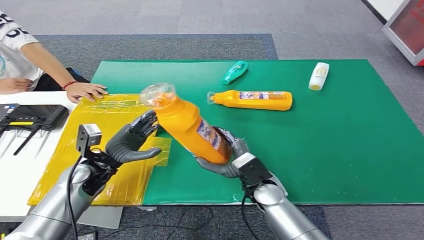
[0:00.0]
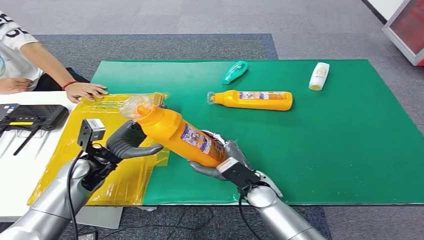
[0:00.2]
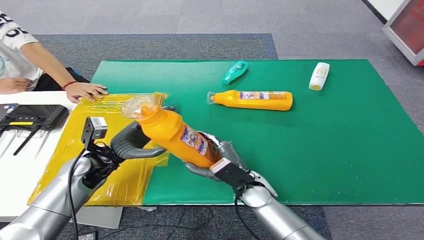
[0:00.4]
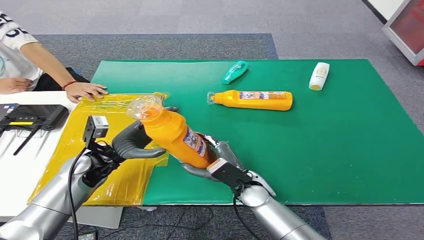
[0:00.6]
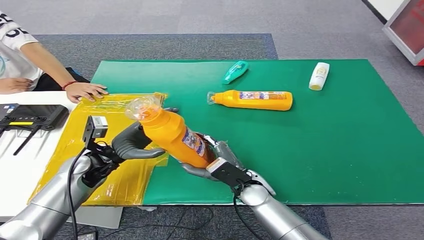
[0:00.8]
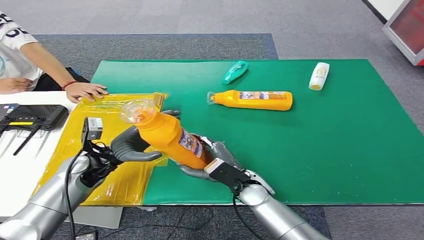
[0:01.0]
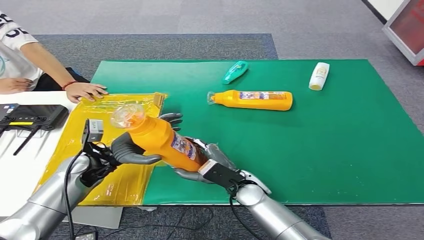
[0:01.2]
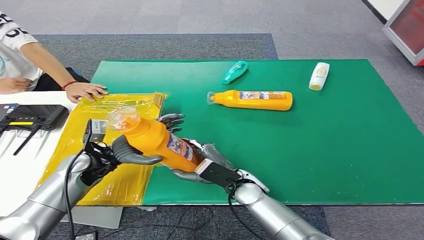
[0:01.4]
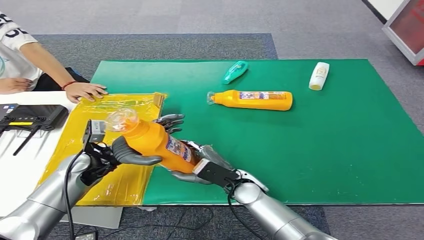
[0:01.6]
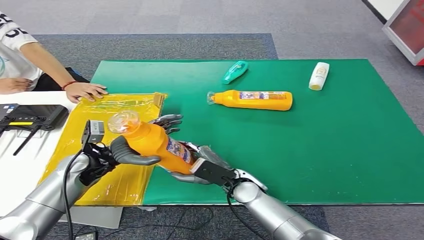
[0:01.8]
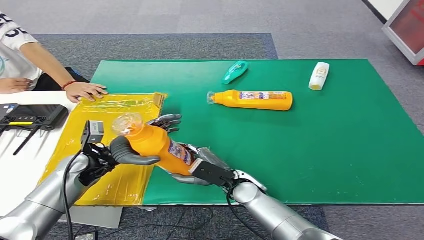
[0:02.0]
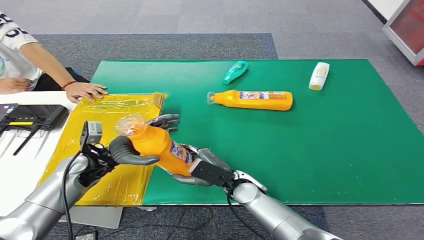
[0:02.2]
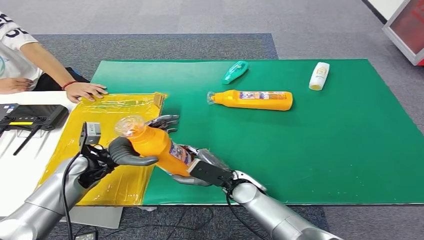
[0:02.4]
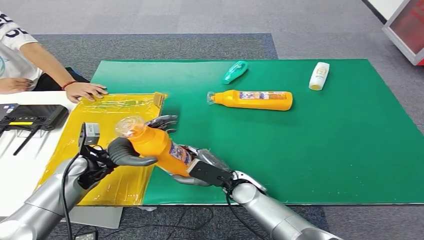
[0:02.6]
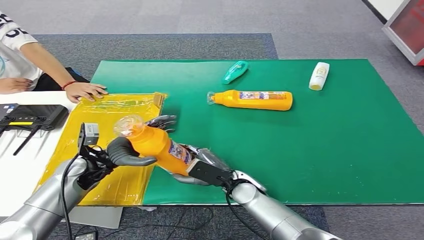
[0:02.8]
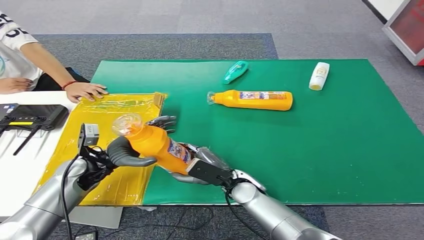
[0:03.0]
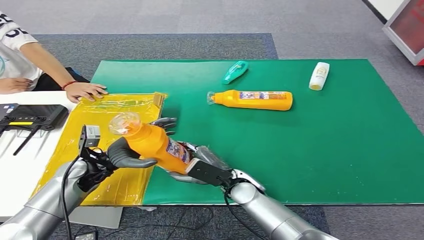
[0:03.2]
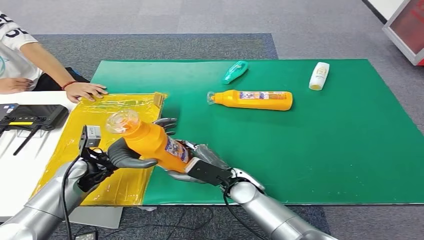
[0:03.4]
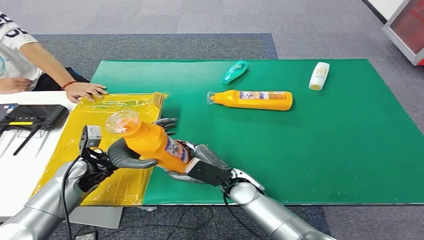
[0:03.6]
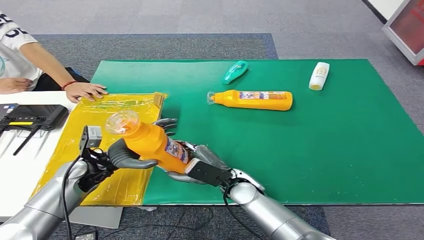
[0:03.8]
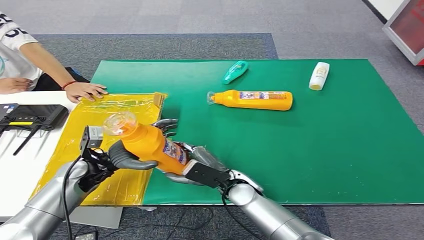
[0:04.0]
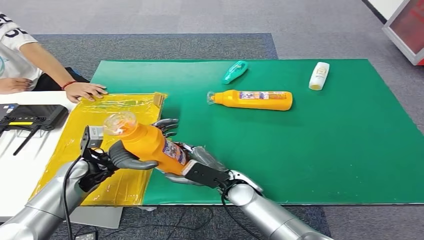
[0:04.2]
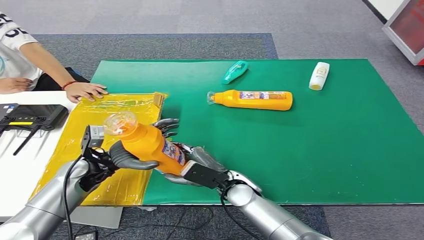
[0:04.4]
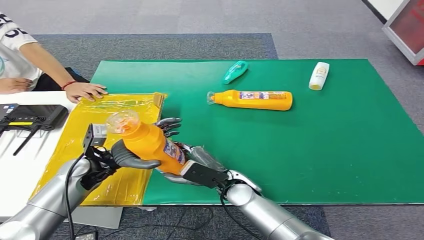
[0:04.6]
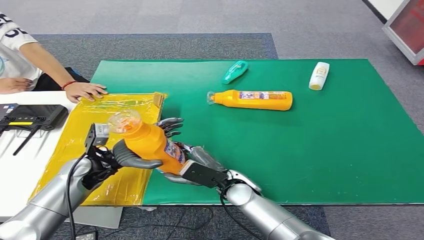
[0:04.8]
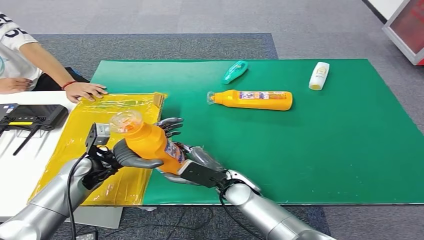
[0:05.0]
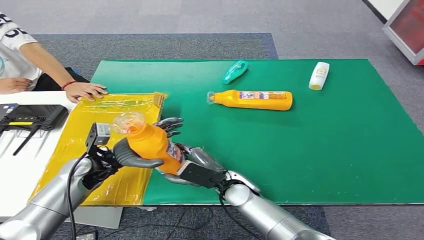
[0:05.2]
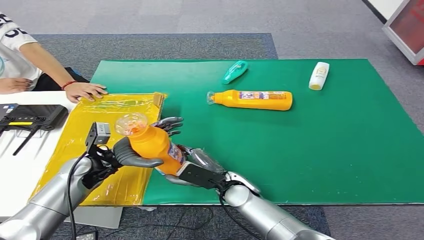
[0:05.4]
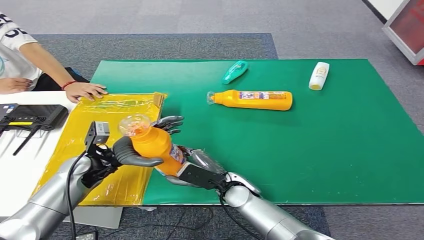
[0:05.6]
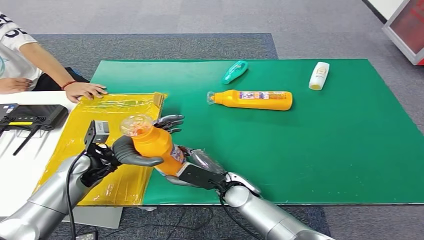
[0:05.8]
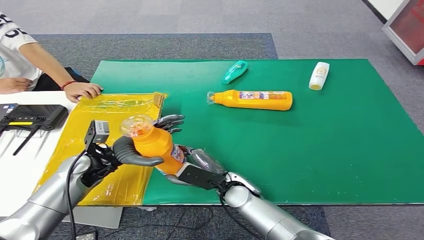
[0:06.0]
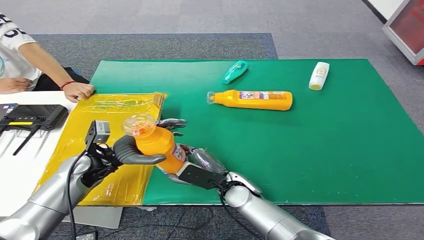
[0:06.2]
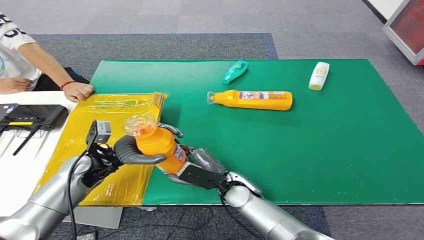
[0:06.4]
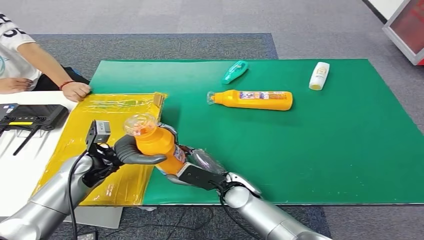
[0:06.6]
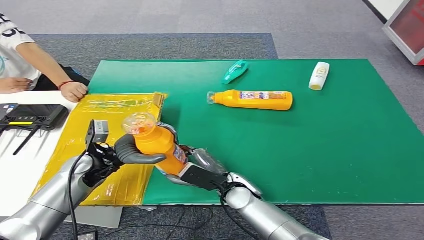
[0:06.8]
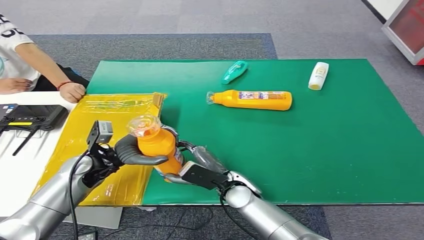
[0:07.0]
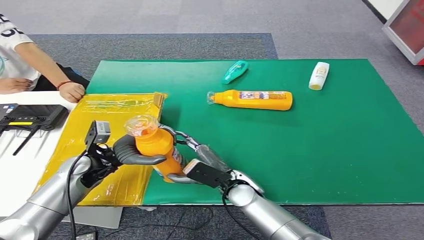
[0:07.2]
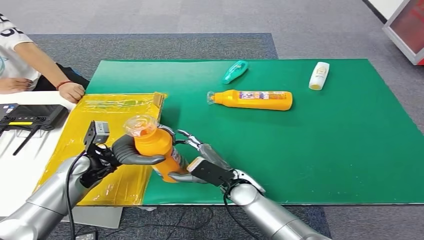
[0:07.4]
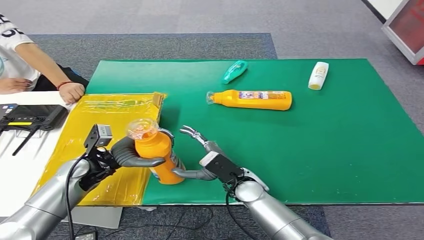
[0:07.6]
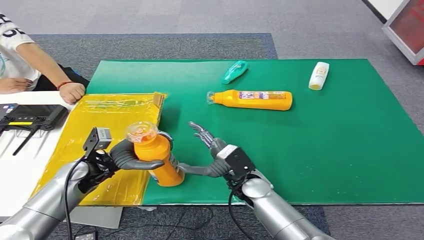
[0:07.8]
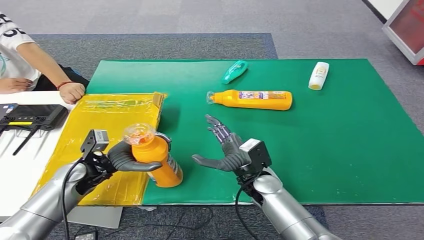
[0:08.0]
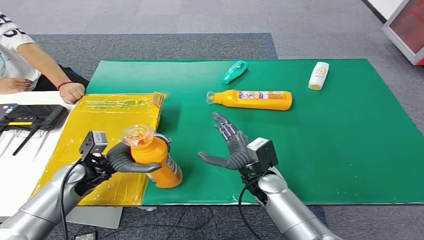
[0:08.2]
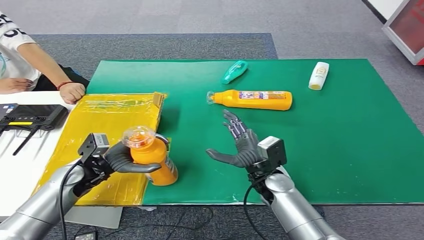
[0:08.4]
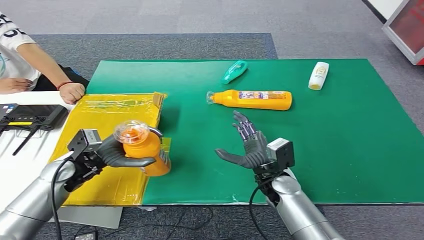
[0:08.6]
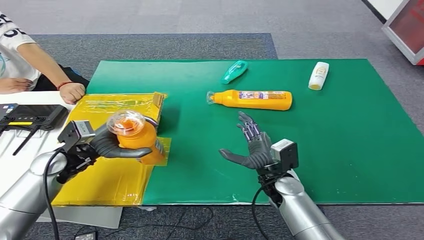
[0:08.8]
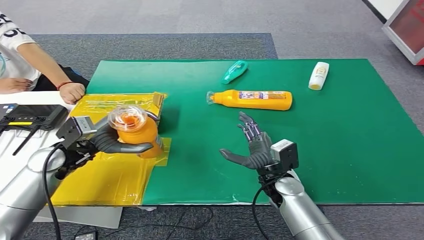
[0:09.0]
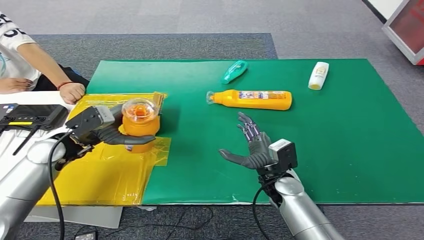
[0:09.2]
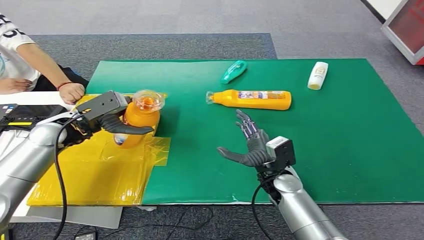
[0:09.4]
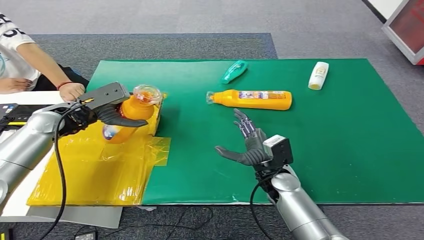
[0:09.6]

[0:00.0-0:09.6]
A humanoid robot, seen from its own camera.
Step, 0:00.0 to 0:09.6: Turn the bottle to the front side.
0:00.0 to 0:01.6: The hands make only small movements.
0:01.6 to 0:06.4: There are only small adjustments of the hands.
